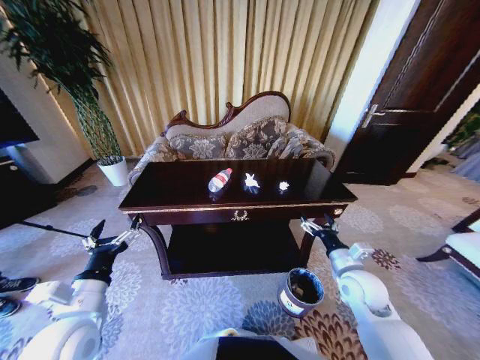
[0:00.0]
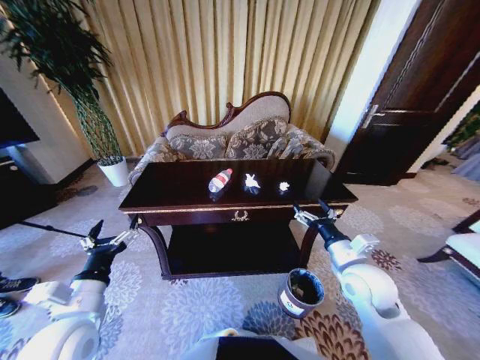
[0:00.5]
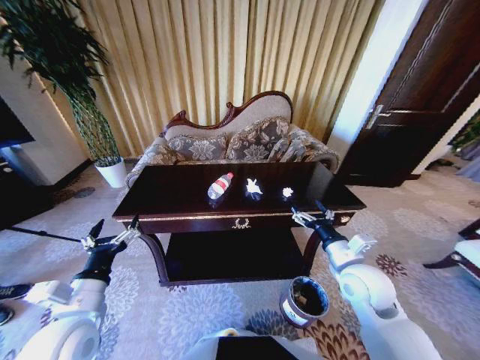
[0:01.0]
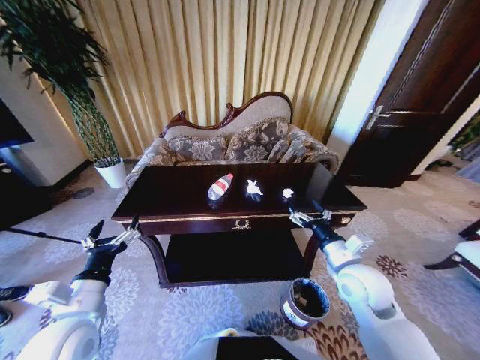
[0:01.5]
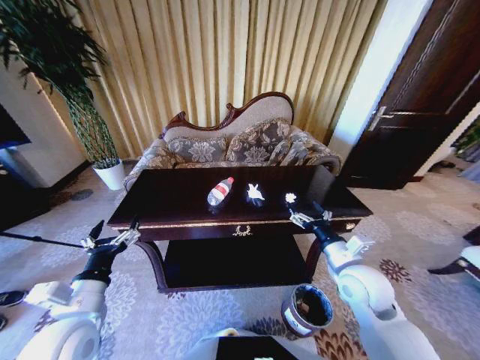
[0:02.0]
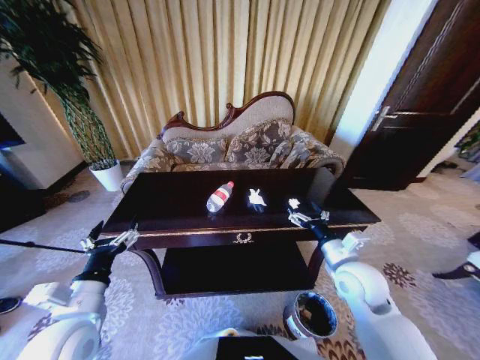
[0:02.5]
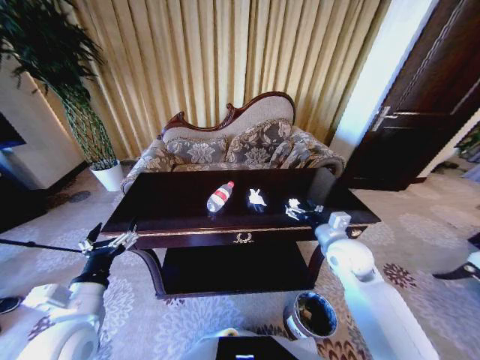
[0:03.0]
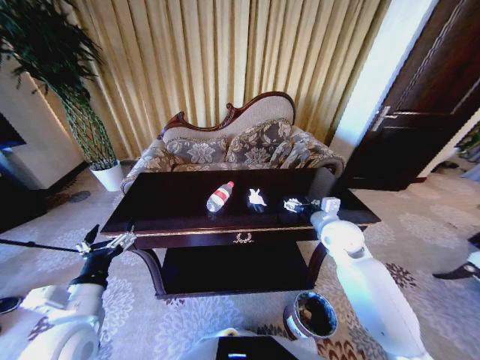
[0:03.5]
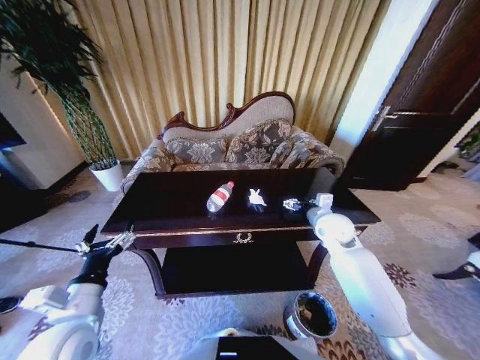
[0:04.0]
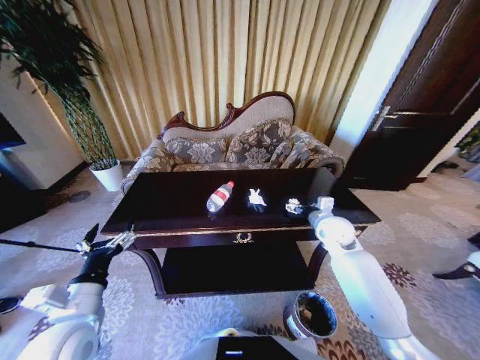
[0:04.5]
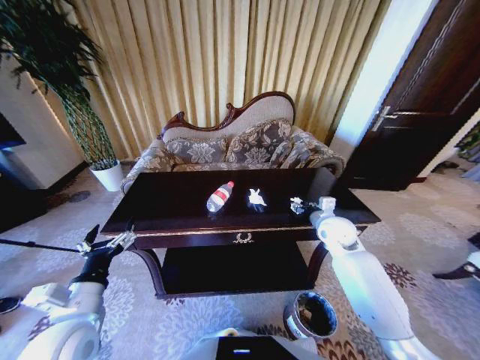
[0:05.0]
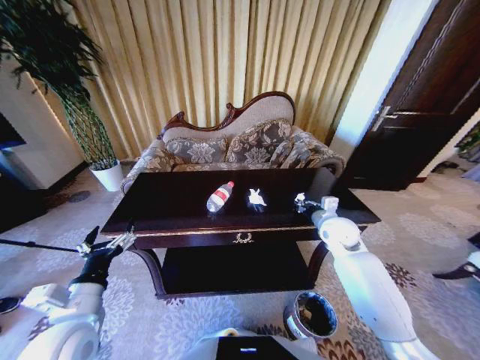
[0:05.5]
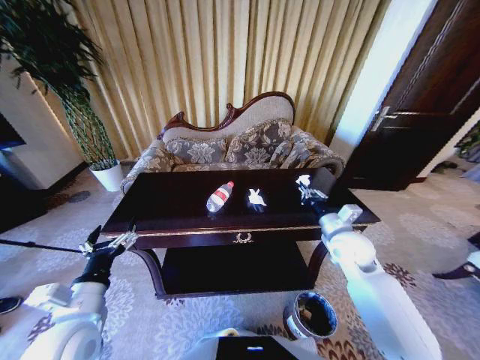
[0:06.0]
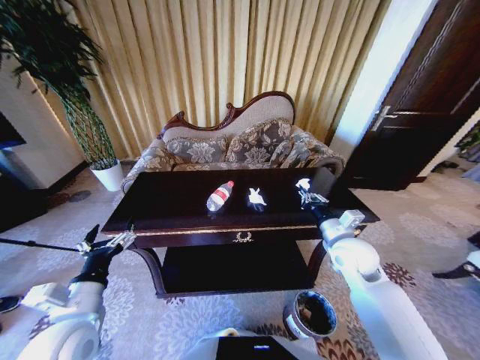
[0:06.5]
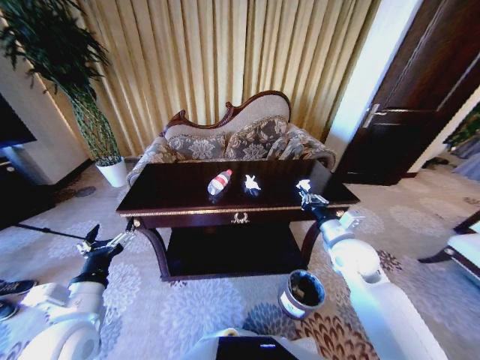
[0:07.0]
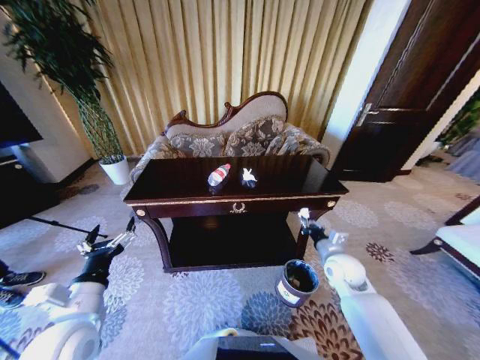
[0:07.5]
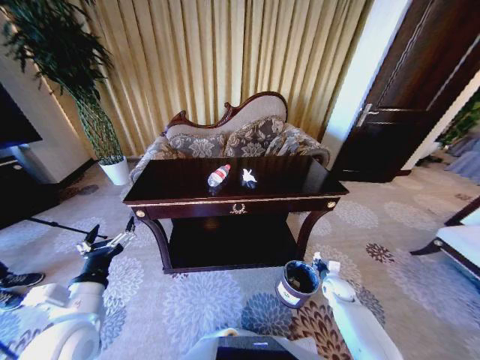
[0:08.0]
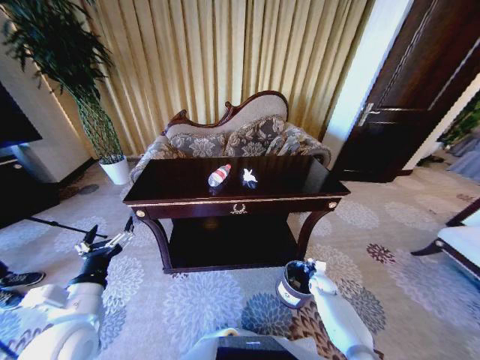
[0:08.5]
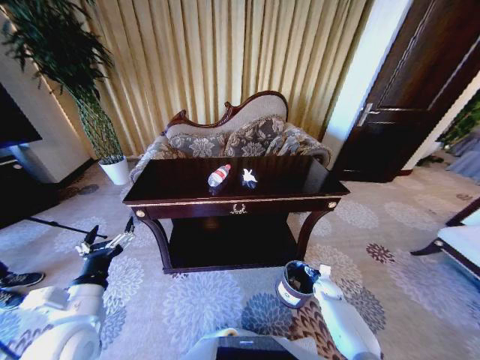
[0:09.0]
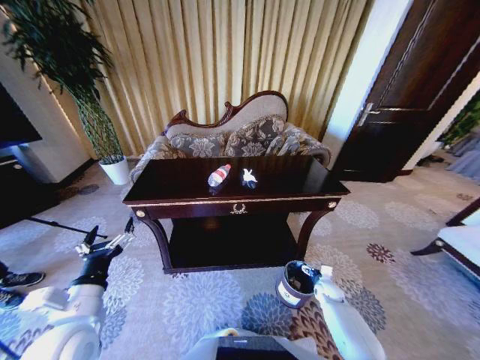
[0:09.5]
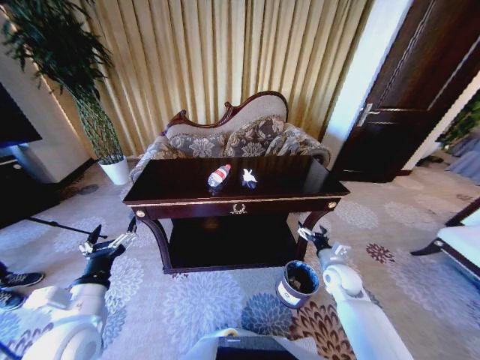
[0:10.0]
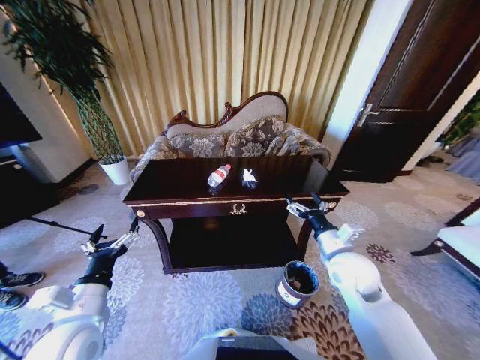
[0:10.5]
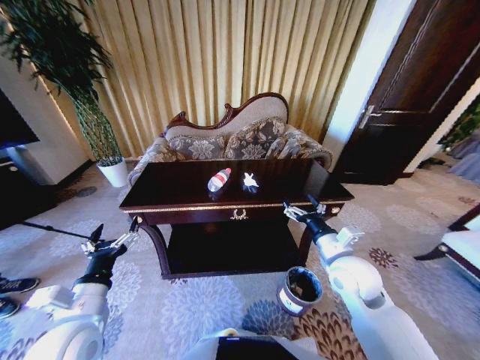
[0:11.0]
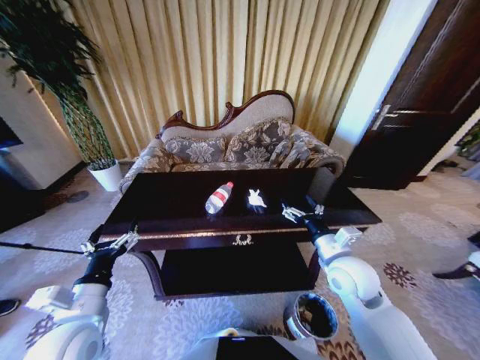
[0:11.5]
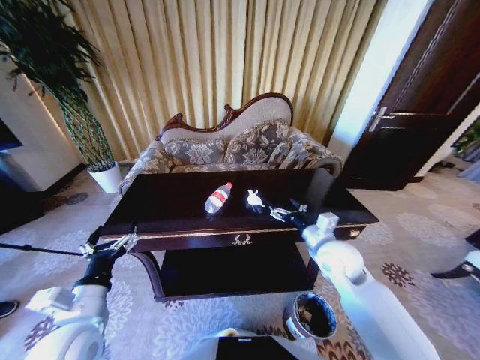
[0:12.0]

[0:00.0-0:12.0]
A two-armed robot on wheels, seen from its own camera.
Task of the whole recording: Move to the front of the table and place the trash on the table into the trash bin.
0:00.0 to 0:02.0: The right gripper shifts about 5 cm upward.
0:02.0 to 0:04.0: The right gripper shifts about 15 cm forward.
0:04.0 to 0:06.0: The right gripper travels backward by some 5 cm, and closes its fingers.
0:06.0 to 0:08.0: The right gripper shifts roughly 25 cm downward.
0:08.0 to 0:10.0: The right gripper shifts roughly 15 cm upward and to the left, and opens its fingers.
0:10.0 to 0:12.0: The right gripper travels upward and to the left by some 20 cm.

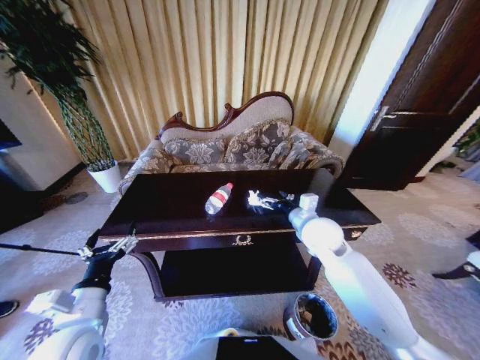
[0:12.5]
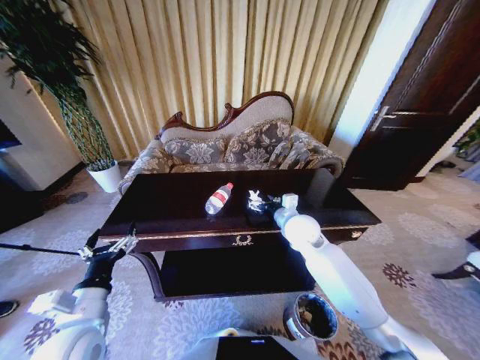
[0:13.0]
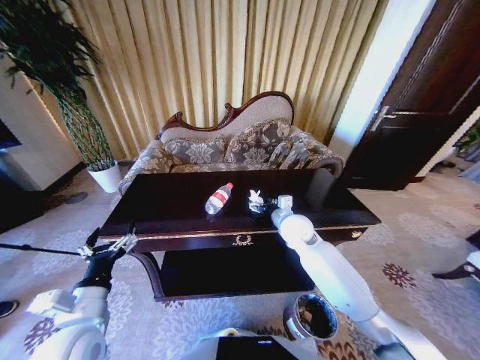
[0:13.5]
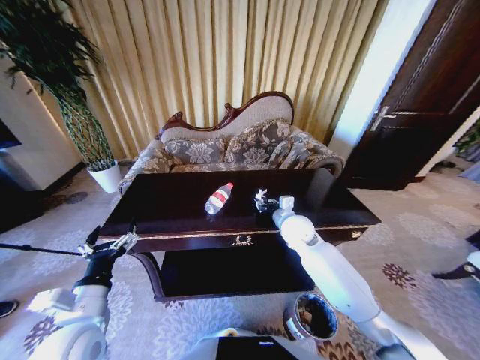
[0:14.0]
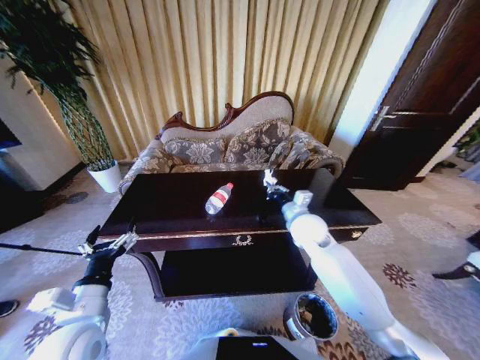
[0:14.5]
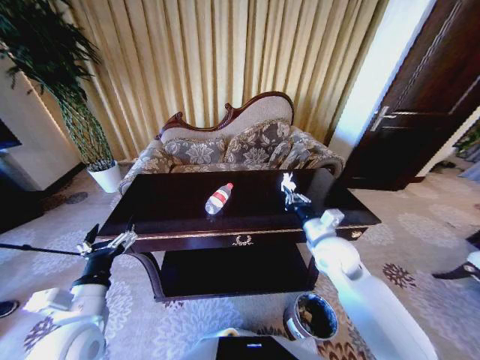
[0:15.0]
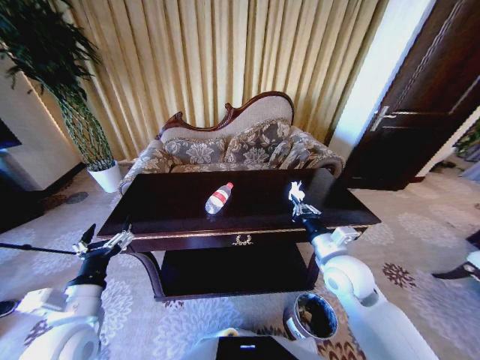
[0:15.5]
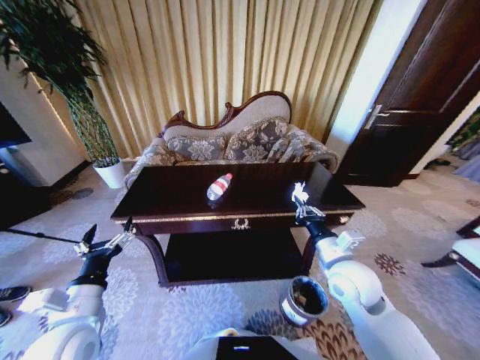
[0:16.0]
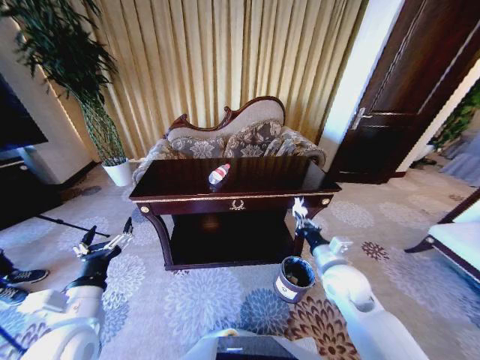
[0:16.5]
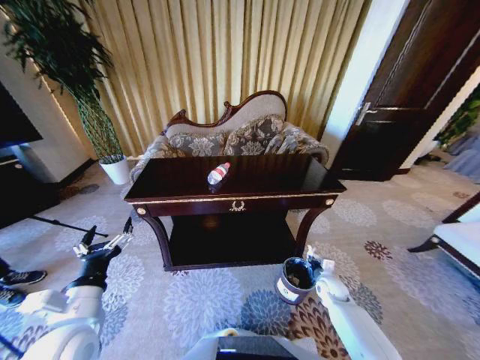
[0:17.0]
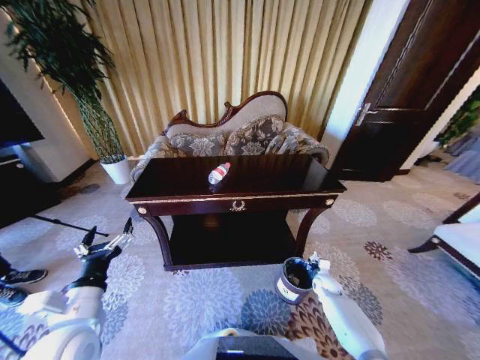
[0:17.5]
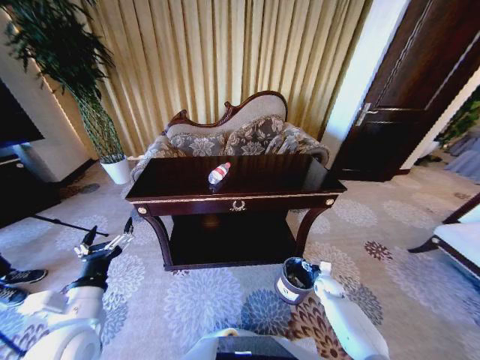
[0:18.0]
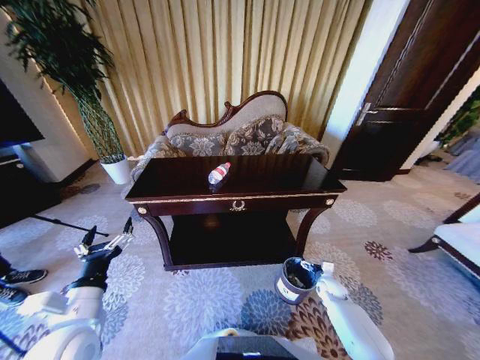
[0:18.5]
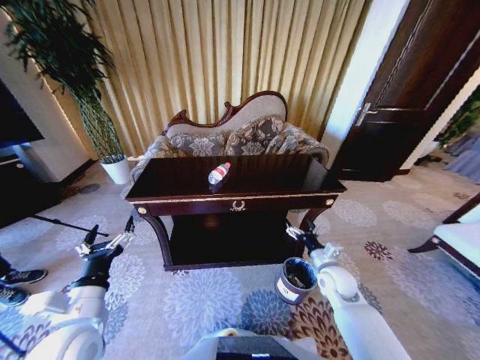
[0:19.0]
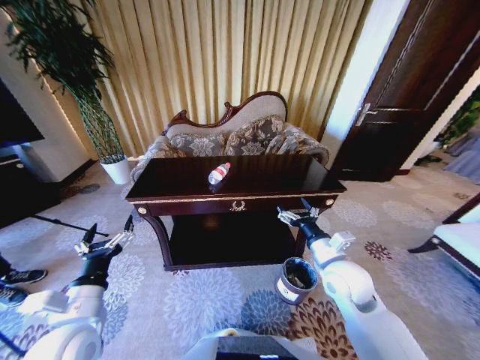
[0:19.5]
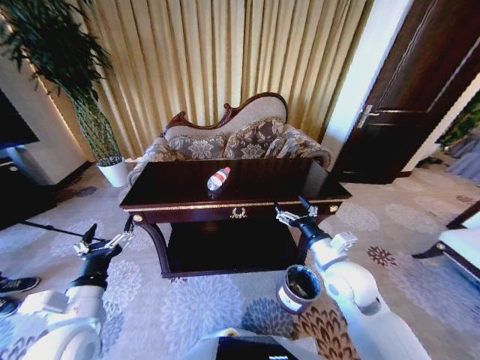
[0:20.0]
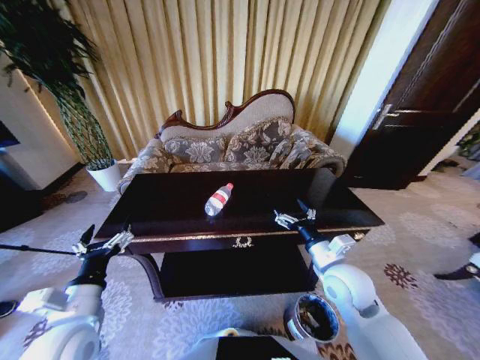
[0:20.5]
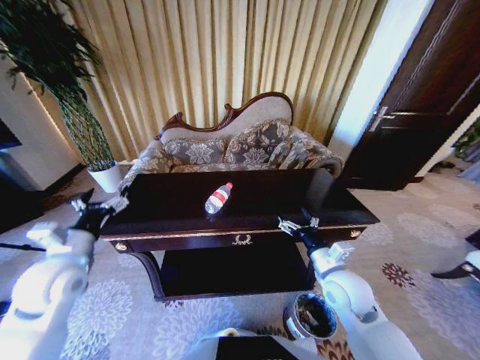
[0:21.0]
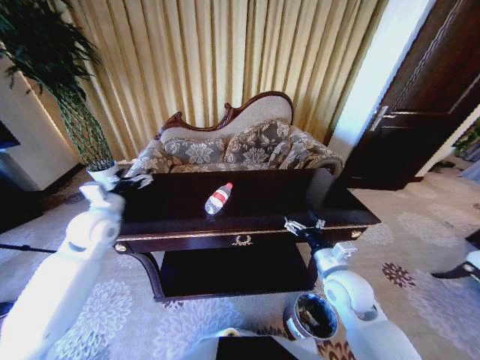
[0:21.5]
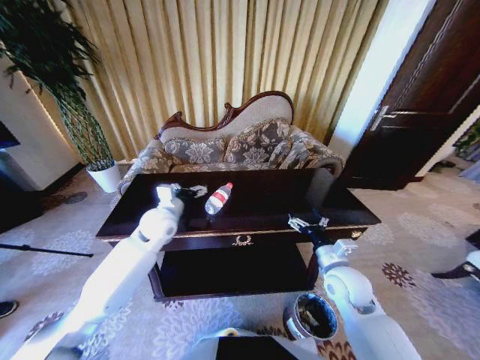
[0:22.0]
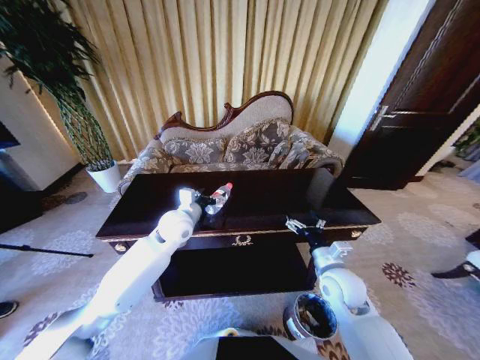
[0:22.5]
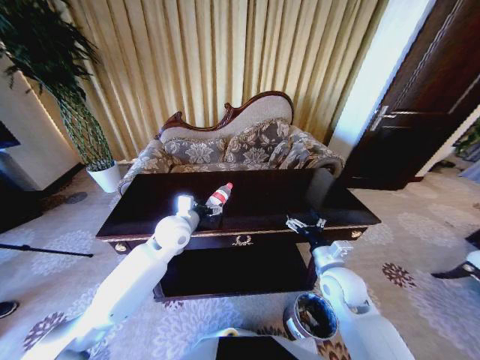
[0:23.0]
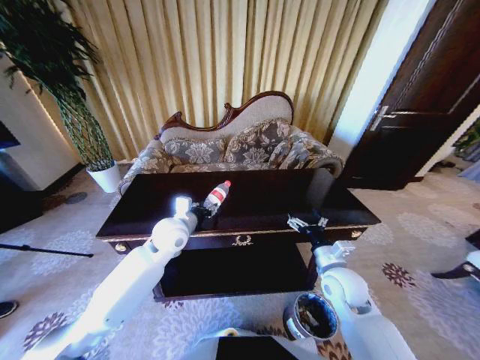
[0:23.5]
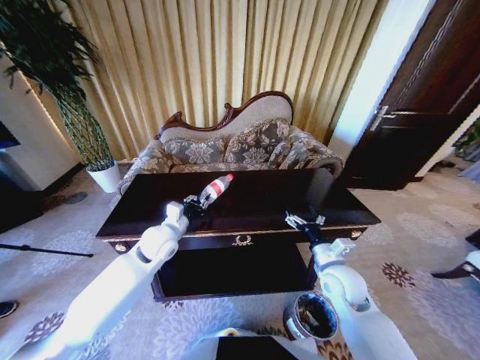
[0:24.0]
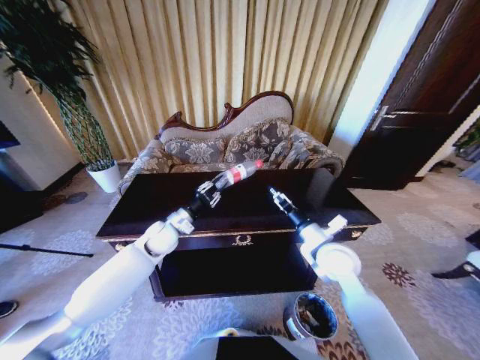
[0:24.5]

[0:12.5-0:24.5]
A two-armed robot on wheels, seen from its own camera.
Task of the whole recording: Move to the front of the table and place the trash on the table into the trash bin.
0:12.5 to 0:14.5: The right gripper closes its fingers.
0:14.5 to 0:16.5: The right gripper travels backward and to the right by approximately 15 cm.
0:16.5 to 0:18.5: The right gripper goes approximately 30 cm downward and to the right, and opens its fingers.
0:18.5 to 0:20.5: The right gripper is displaced upward and to the left by about 35 cm.
0:20.5 to 0:22.5: The right gripper travels downward by about 5 cm, while the left gripper heads forward and to the right, covering approximately 30 cm.
0:22.5 to 0:24.5: The right gripper is displaced upward by about 5 cm; the left gripper travels to the left and downward by roughly 10 cm, and closes its fingers.

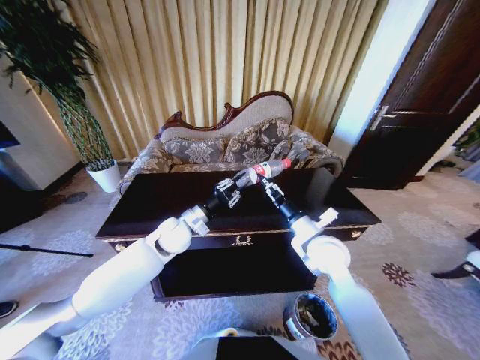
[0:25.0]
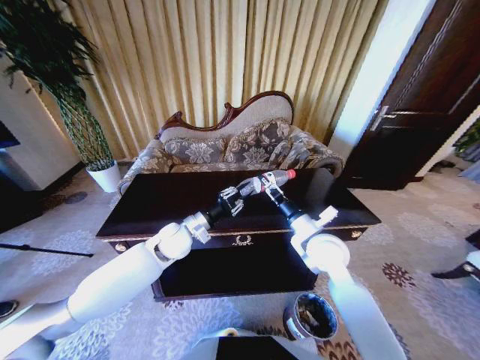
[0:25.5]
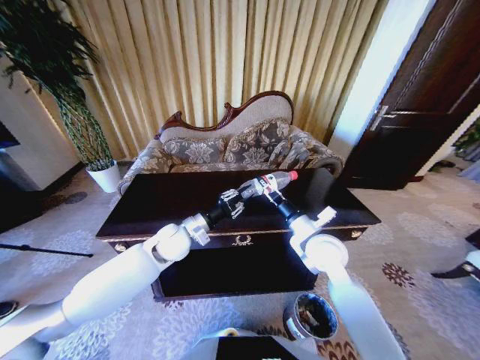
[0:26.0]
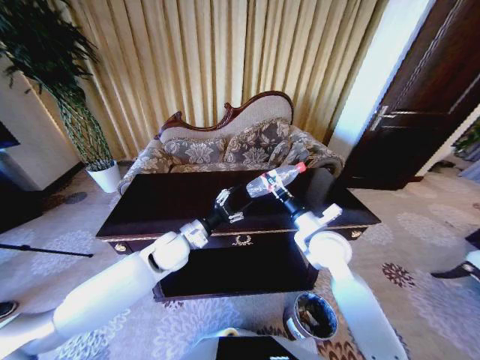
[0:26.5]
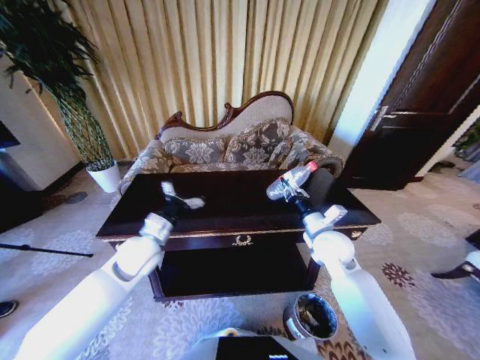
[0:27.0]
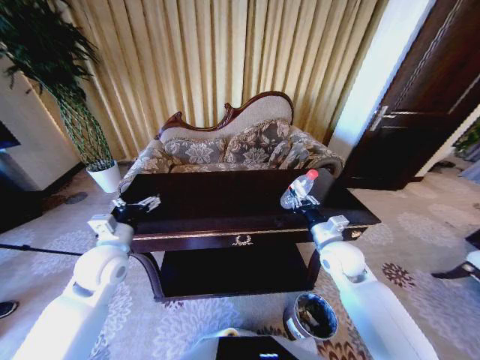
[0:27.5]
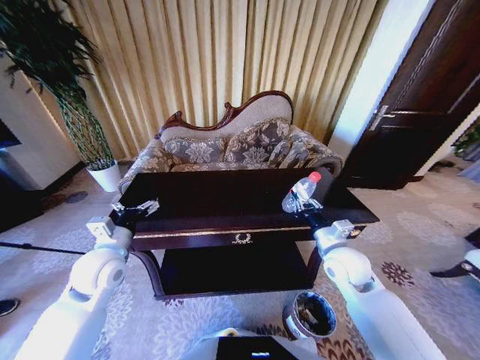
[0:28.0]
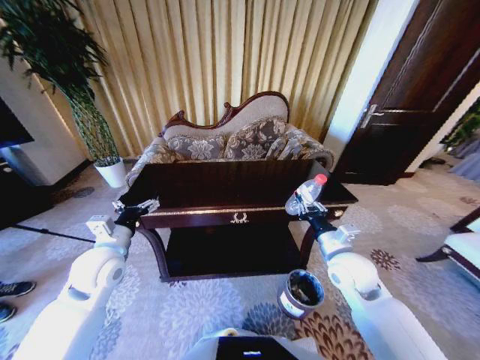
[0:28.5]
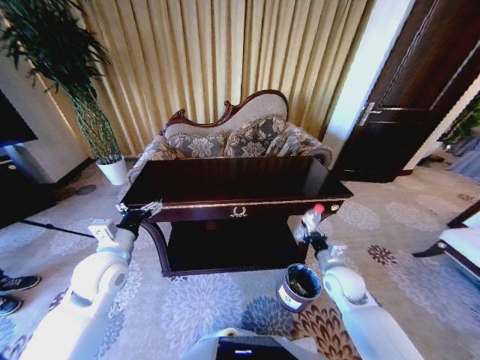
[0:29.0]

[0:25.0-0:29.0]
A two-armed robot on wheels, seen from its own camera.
Task of the whole recording: Move to the front of the table and place the trash on the table into the trash bin.
0:25.0 to 0:27.0: The right gripper moves approximately 5 cm, and closes up; the left gripper travels to the left and backward by some 10 cm, and opens.
0:27.0 to 0:29.0: The left gripper goes roughly 10 cm to the left and backward. Meanwhile the right gripper goes approximately 15 cm downward, backward and to the right.
